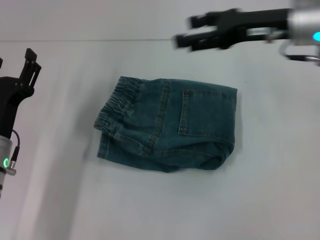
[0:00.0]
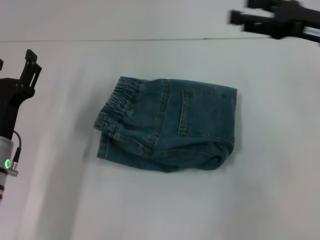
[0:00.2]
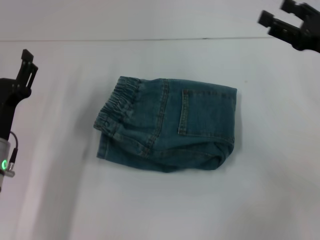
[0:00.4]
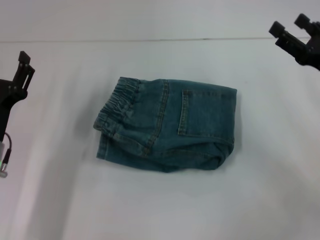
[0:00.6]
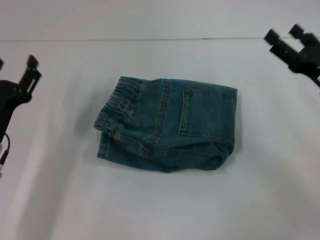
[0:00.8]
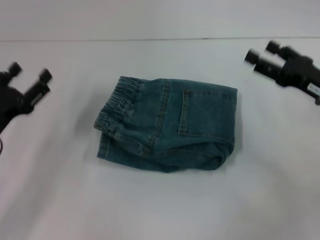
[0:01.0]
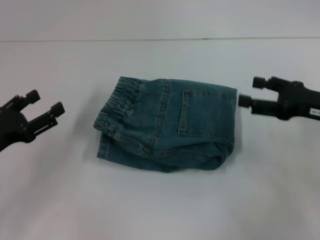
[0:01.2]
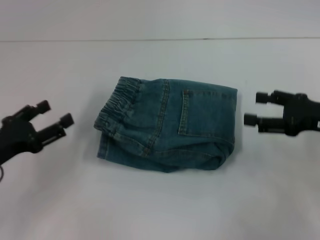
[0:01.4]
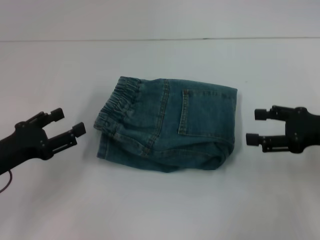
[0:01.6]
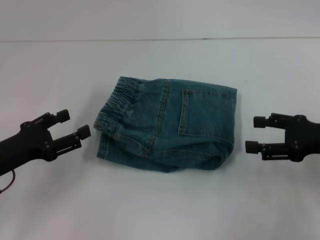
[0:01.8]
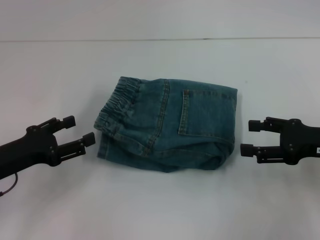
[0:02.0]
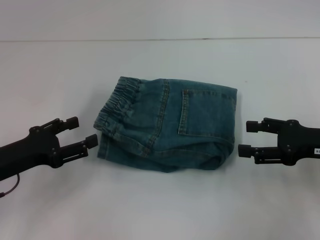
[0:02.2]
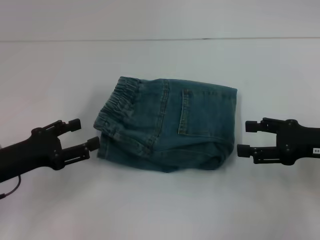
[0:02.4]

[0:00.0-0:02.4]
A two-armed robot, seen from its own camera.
0:00.0 to 0:01.2: The right gripper travels downward, to the right and backward by roughly 15 cm. The left gripper goes some 5 cm to the left.
0:01.2 to 0:02.4: The grippers stay close to where they were, moving slightly.
